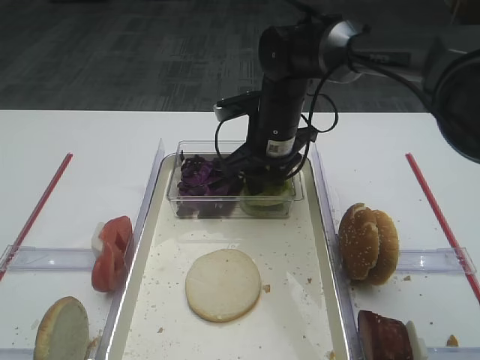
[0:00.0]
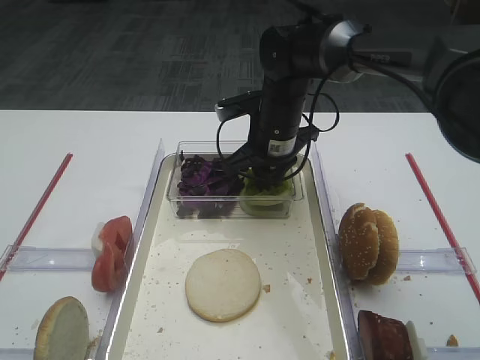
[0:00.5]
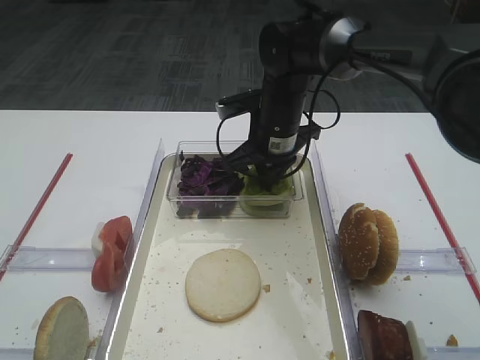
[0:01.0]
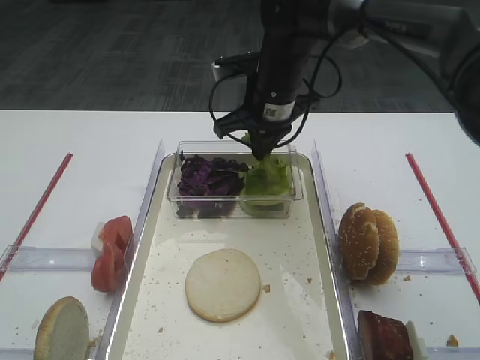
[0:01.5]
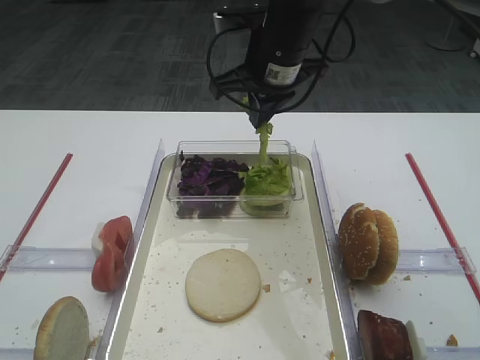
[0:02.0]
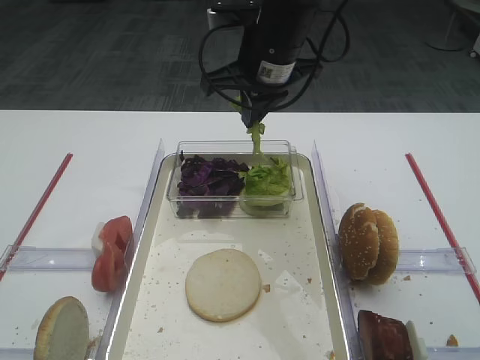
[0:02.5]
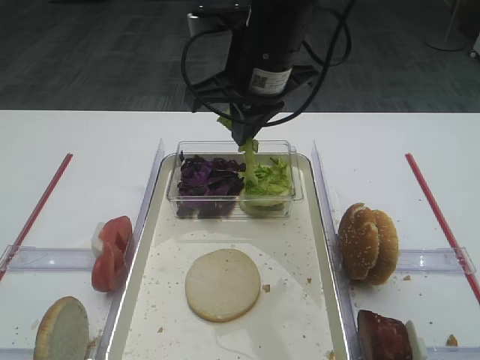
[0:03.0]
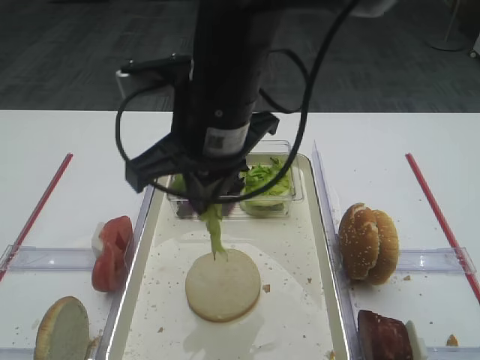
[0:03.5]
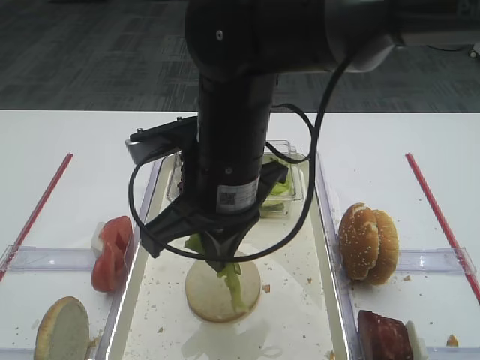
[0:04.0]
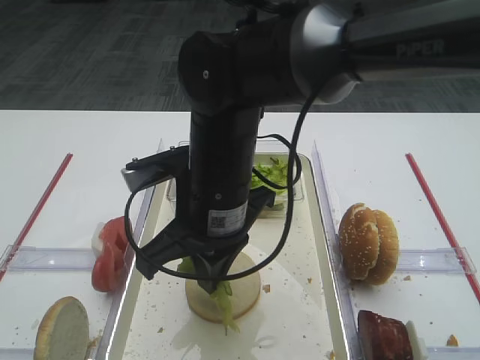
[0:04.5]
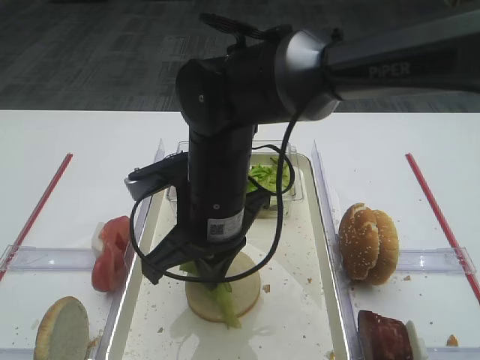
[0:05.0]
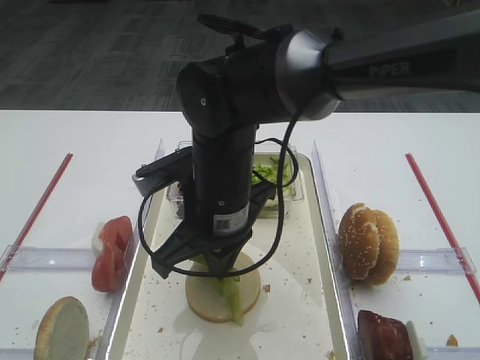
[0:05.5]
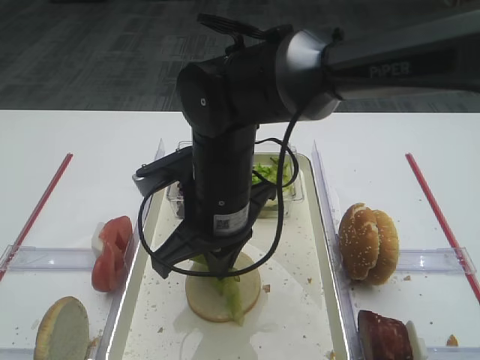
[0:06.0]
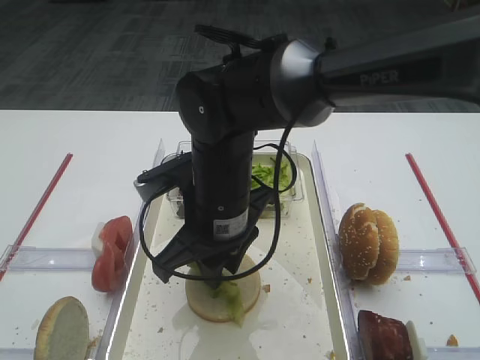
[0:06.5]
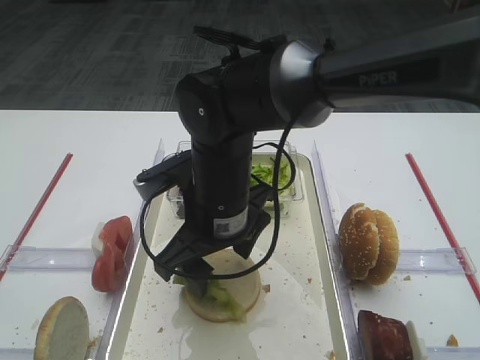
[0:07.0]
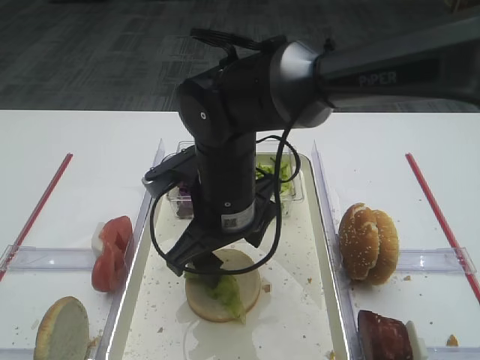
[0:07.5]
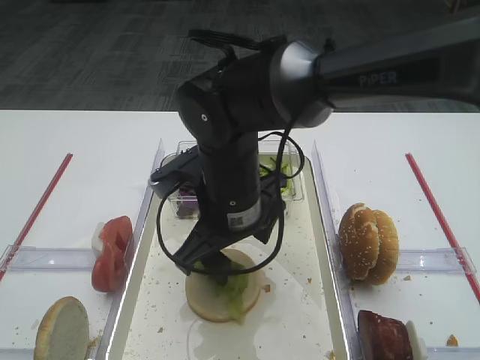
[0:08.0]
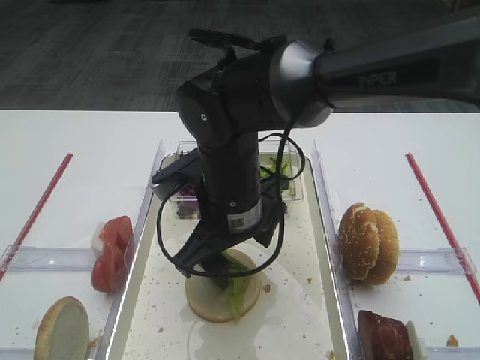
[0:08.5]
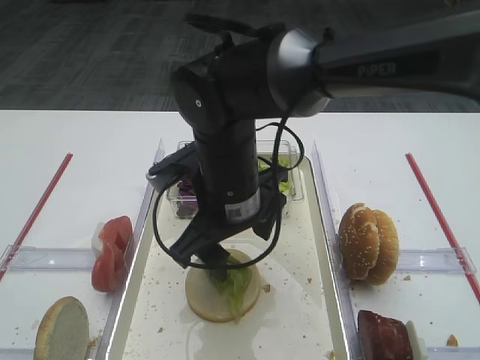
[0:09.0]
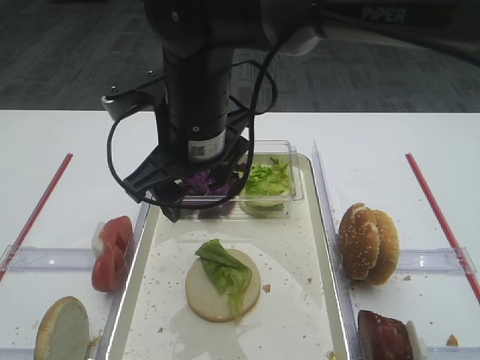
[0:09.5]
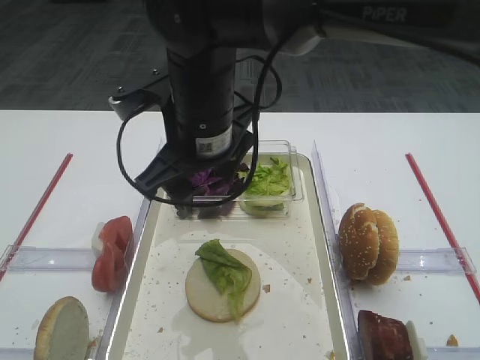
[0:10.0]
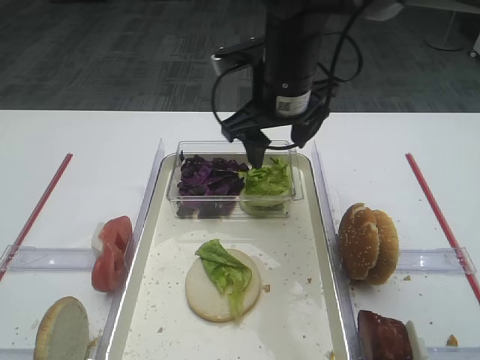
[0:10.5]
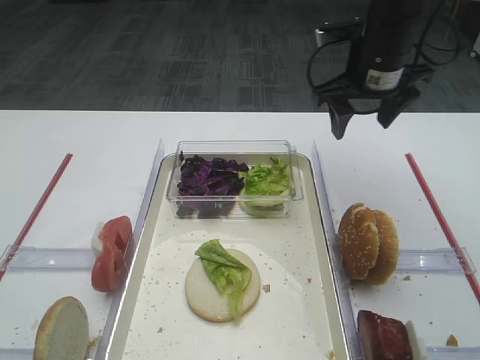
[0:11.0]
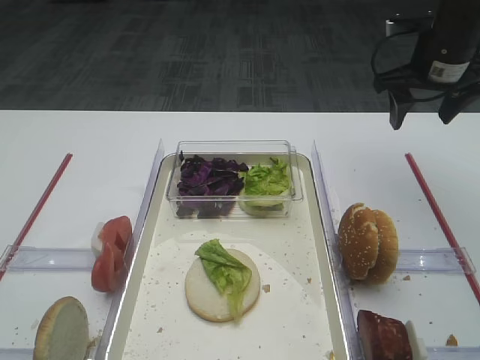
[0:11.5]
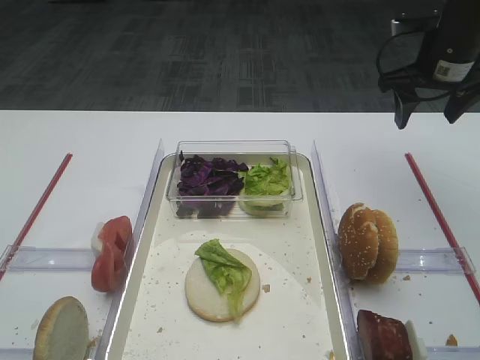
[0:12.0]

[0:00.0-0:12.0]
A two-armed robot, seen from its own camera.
Step, 0:00.0 to 0:02.5: Pick up the lettuce leaf with the right gripper.
Step, 0:03.0 to 0:09.5: Place the lettuce leaf on the bread slice with the right gripper.
0:00.0 to 0:02.0: The right gripper travels upward by some 10 cm, and closes its fingers.
0:02.0 to 0:04.0: The right gripper is displaced backward by about 15 cm.
0:04.0 to 0:06.0: The right gripper heads downward, covering roughly 5 cm.
0:06.0 to 0:08.0: The right gripper opens.
0:08.0 to 0:10.0: The right gripper shifts roughly 10 cm upward.
0:10.0 to 0:12.0: The right gripper goes some 35 cm to the right and forward.

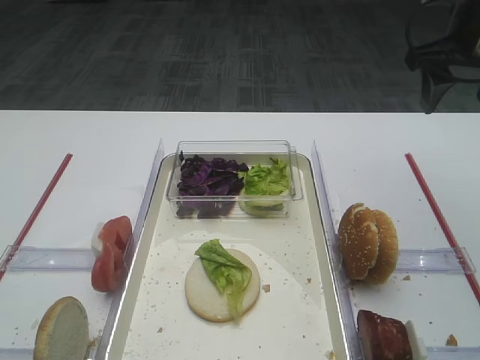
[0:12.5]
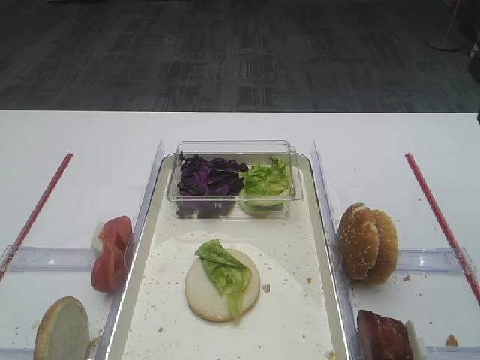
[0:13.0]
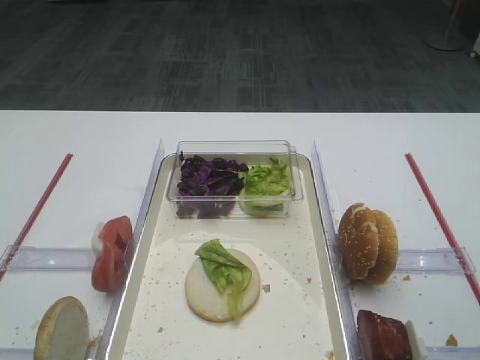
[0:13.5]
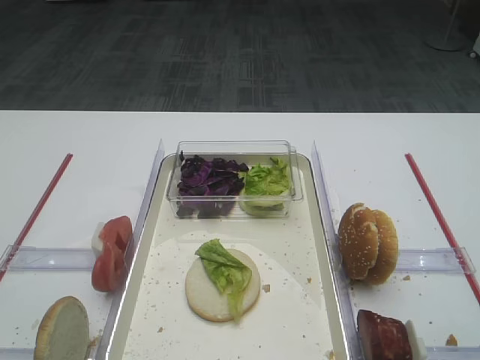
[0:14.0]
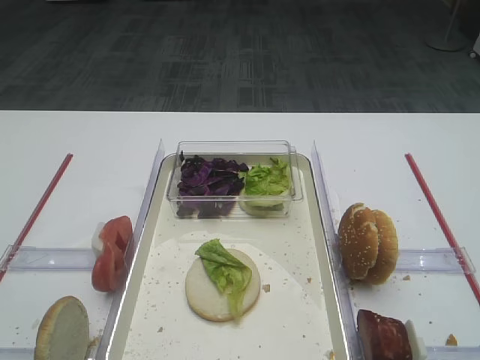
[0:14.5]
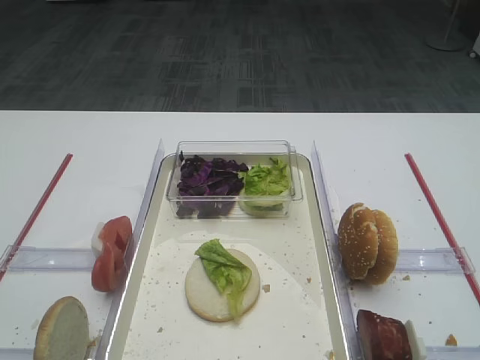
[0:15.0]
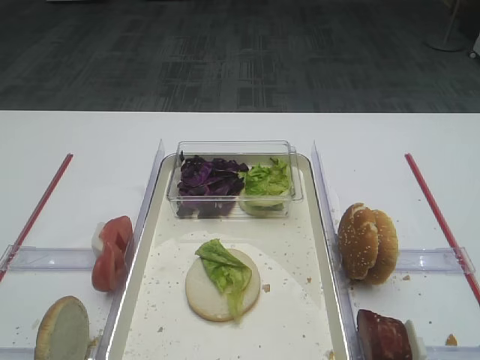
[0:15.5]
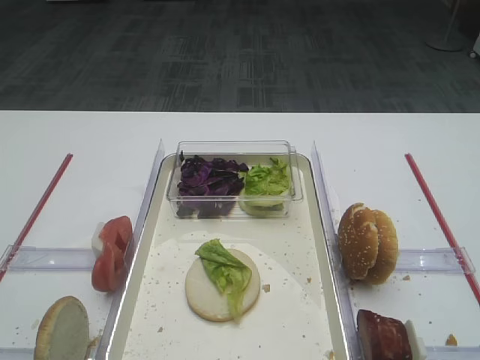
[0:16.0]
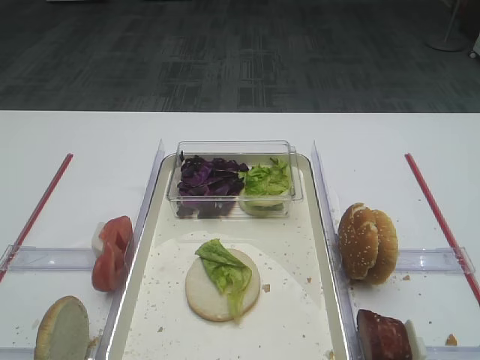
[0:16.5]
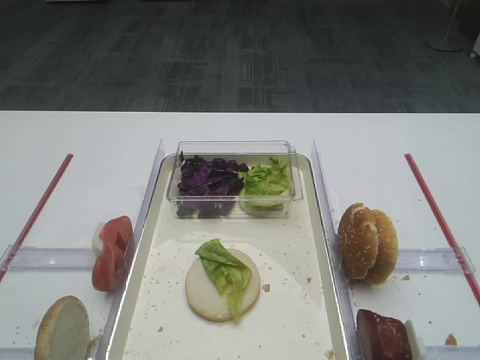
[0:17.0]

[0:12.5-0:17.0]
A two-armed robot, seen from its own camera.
0:12.5 to 0:14.5: The right gripper heads backward, covering about 35 cm.

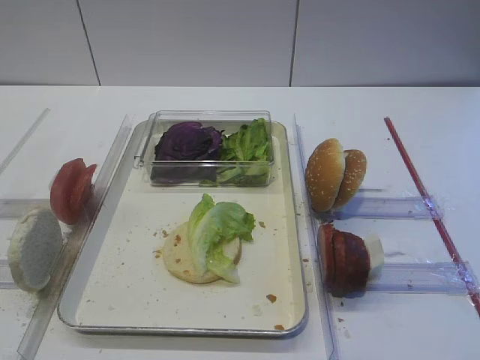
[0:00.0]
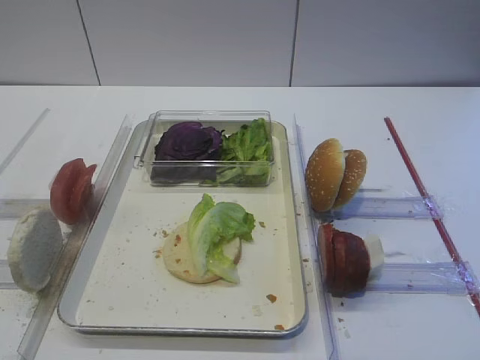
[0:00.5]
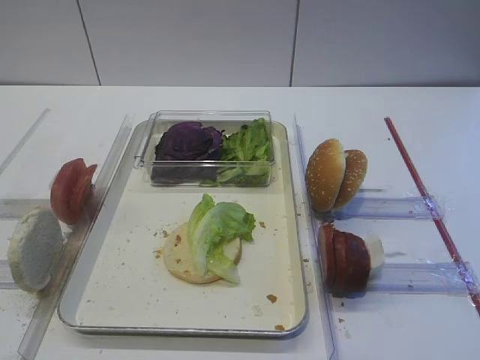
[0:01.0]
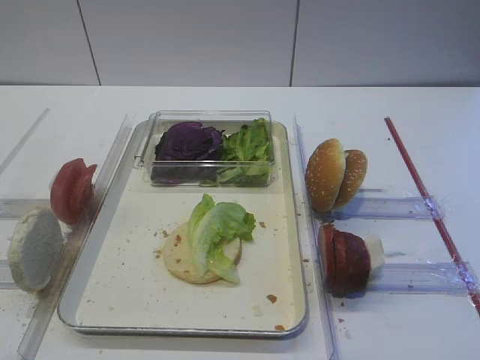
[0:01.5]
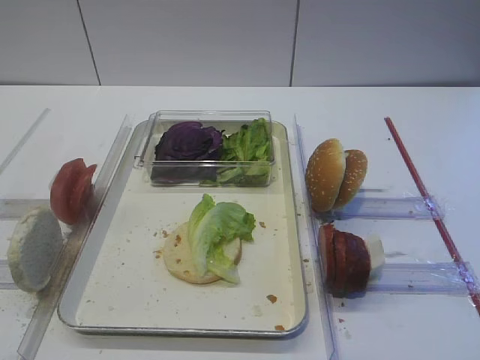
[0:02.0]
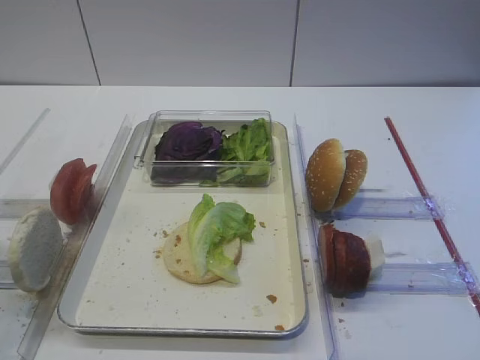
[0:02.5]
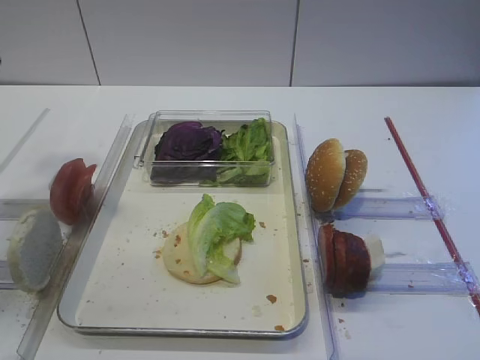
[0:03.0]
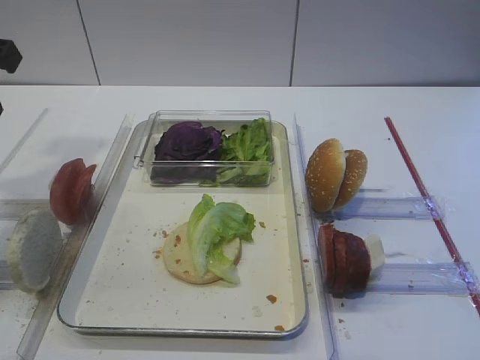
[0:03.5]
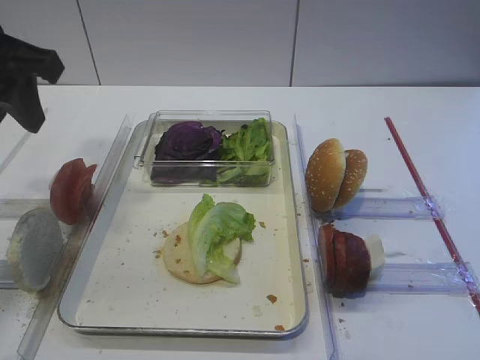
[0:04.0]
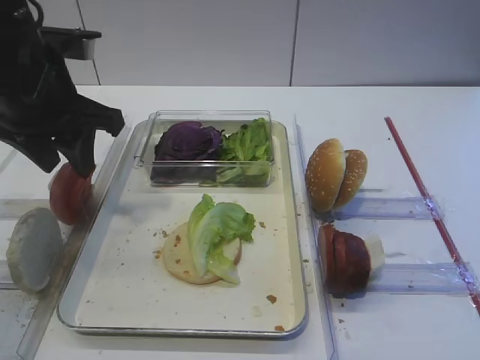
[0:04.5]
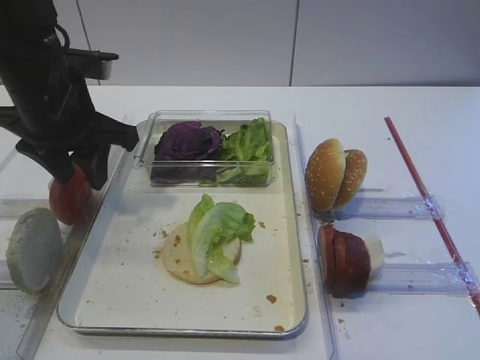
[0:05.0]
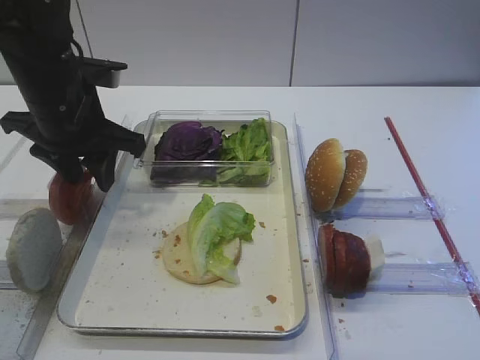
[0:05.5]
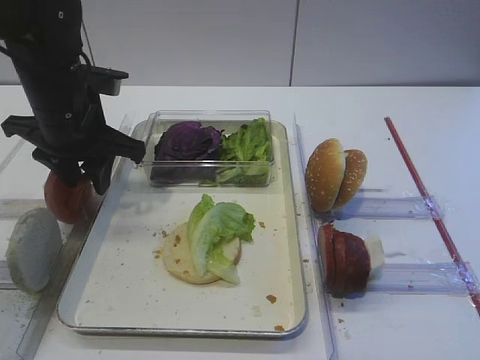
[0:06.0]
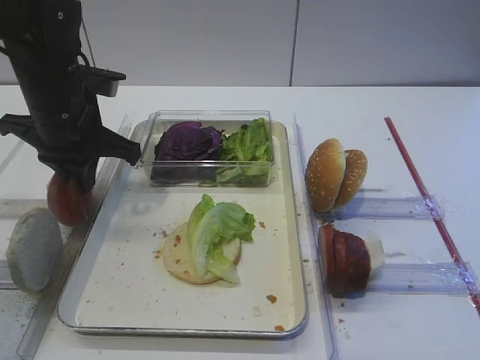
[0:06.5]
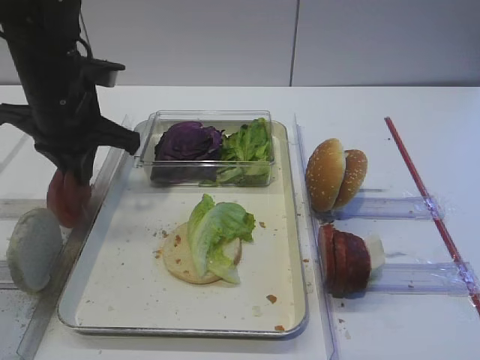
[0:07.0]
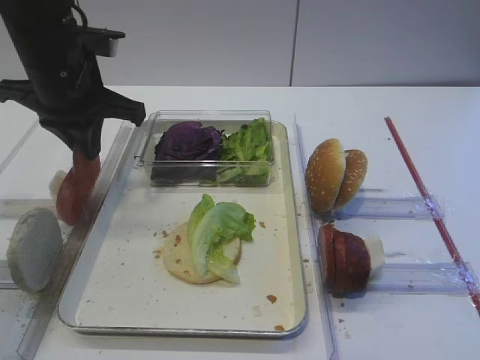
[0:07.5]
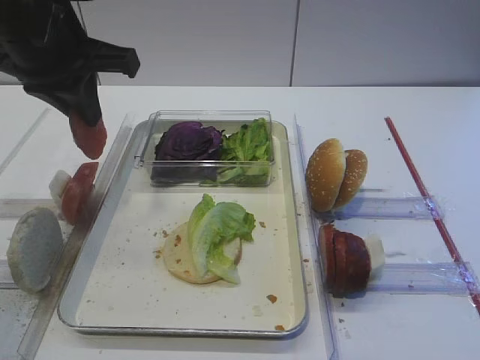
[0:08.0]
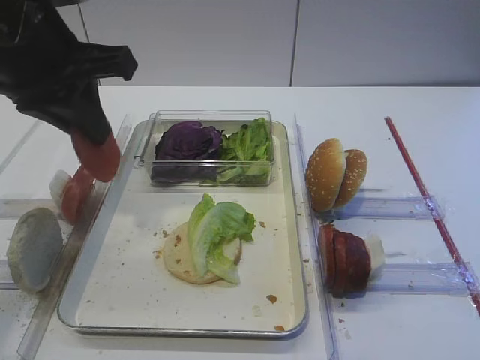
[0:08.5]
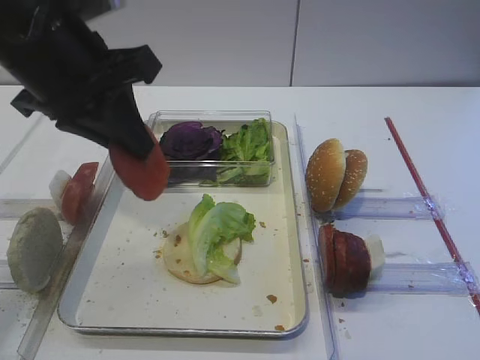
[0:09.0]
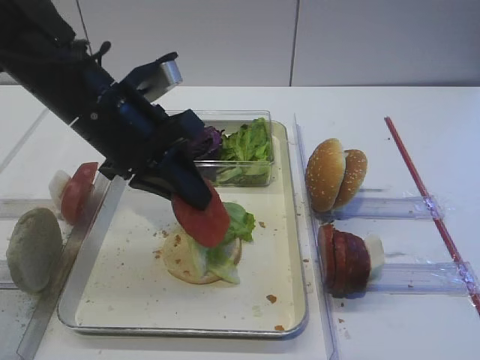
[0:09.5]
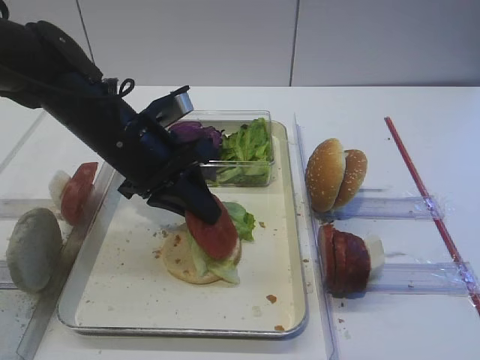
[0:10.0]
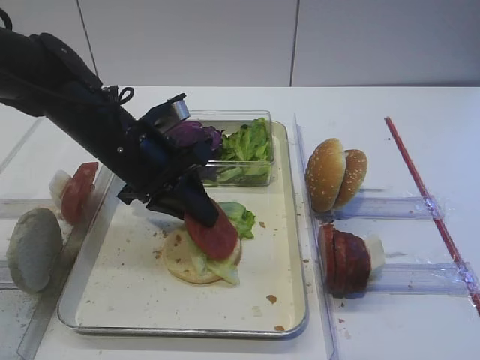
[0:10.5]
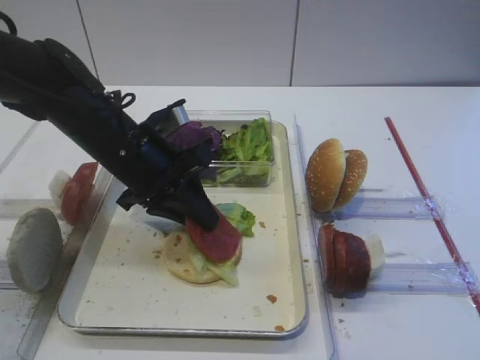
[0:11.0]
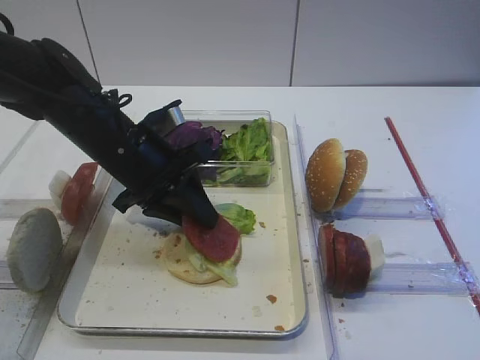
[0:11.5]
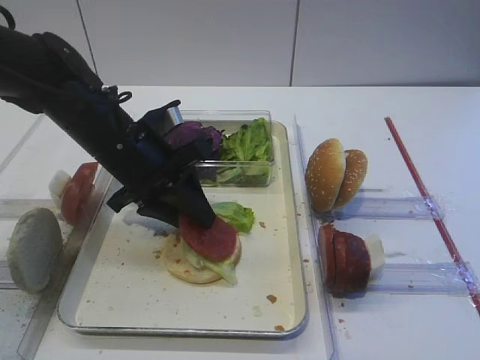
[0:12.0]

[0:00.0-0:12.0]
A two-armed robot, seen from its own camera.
Step, 0:00.0 to 0:07.5: Pick up the tomato slice with the left gripper.
0:02.0 to 0:04.0: The left gripper goes approximately 25 cm forward.
0:04.0 to 0:06.0: The left gripper goes approximately 15 cm downward and forward.
0:06.0 to 0:08.0: The left gripper goes some 10 cm upward, and closes.
0:08.0 to 0:10.0: The left gripper shifts approximately 15 cm downward and to the right.
0:10.0 to 0:12.0: The left gripper opens up.
